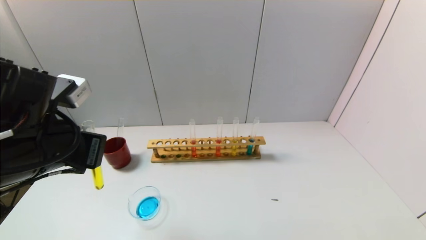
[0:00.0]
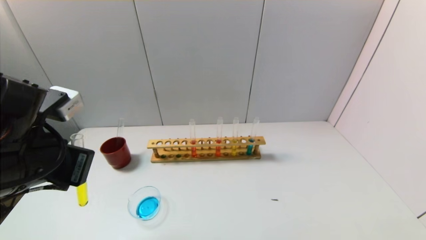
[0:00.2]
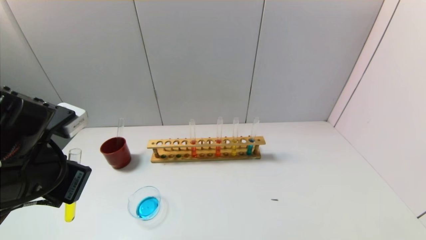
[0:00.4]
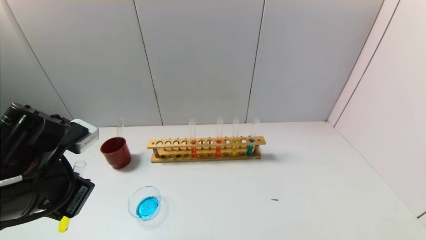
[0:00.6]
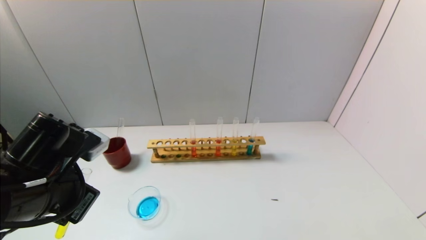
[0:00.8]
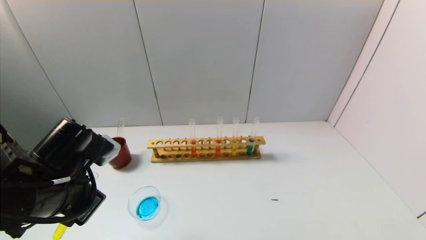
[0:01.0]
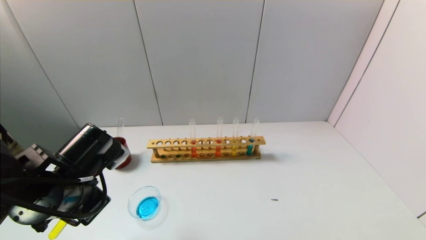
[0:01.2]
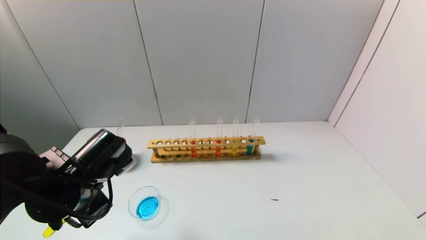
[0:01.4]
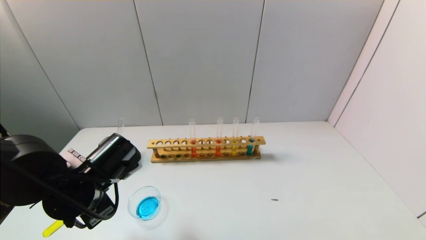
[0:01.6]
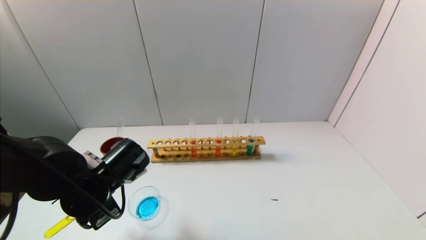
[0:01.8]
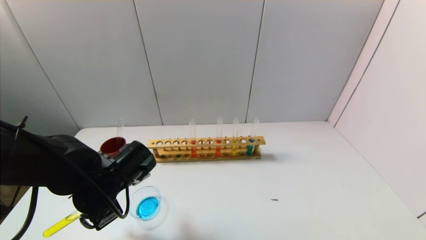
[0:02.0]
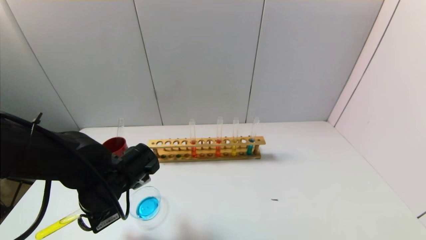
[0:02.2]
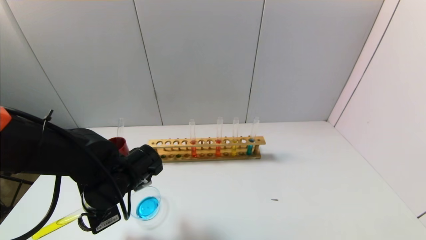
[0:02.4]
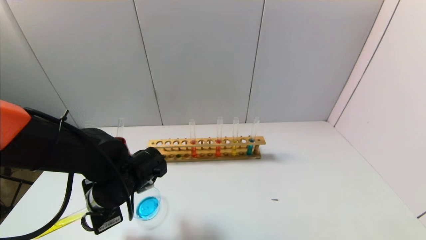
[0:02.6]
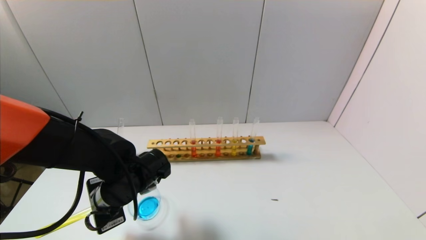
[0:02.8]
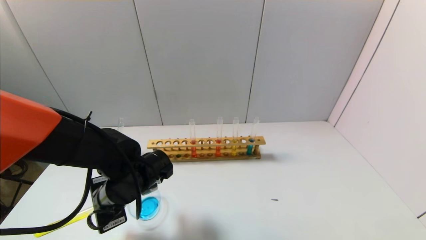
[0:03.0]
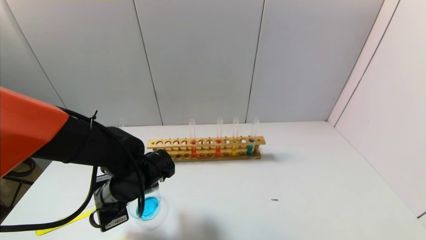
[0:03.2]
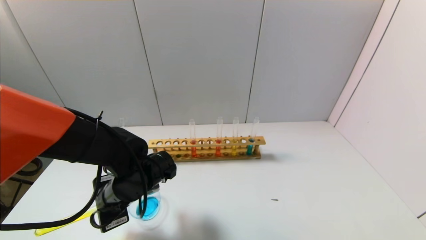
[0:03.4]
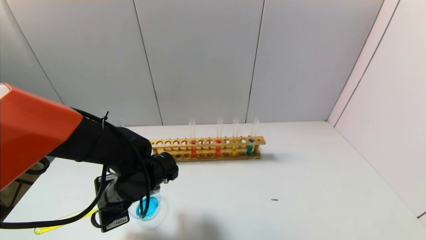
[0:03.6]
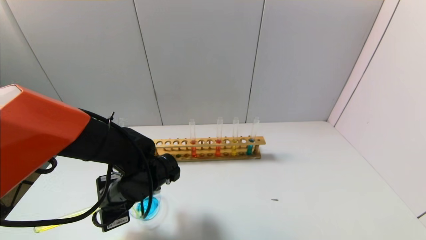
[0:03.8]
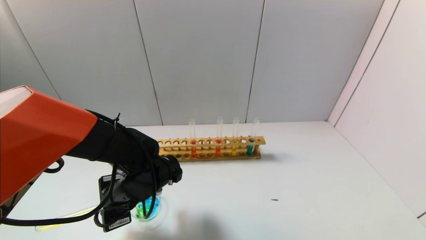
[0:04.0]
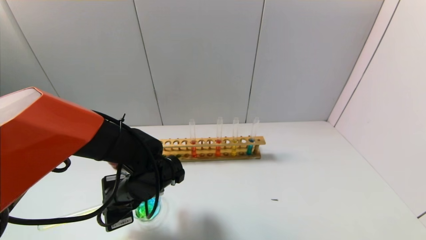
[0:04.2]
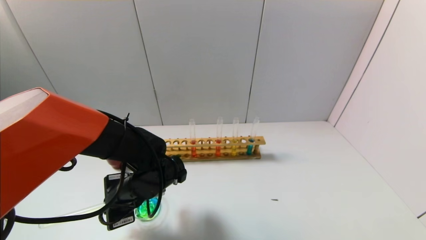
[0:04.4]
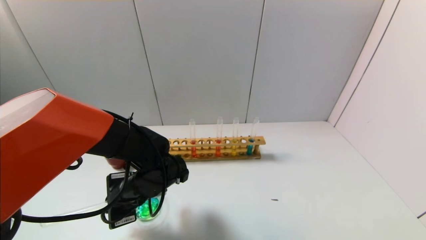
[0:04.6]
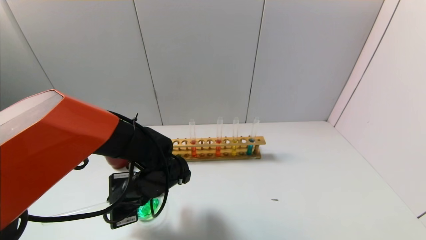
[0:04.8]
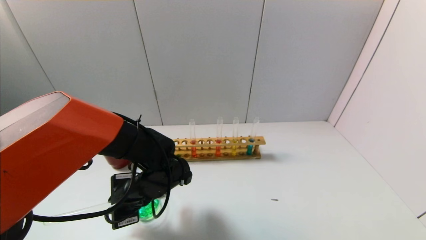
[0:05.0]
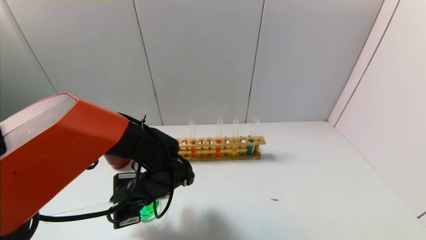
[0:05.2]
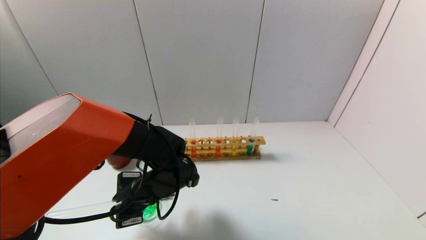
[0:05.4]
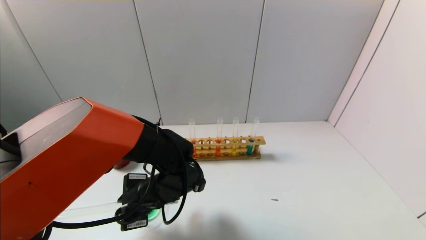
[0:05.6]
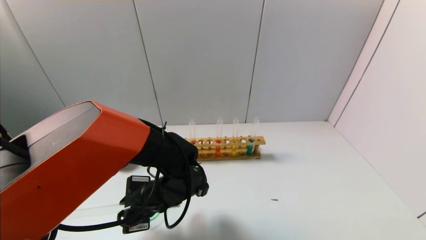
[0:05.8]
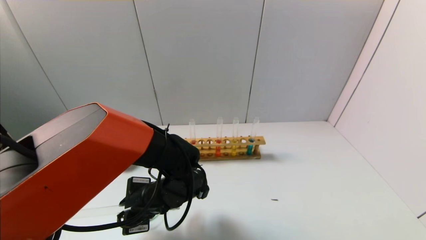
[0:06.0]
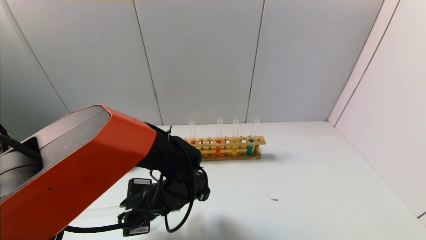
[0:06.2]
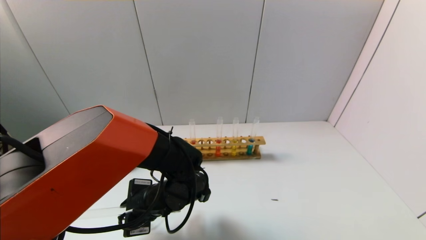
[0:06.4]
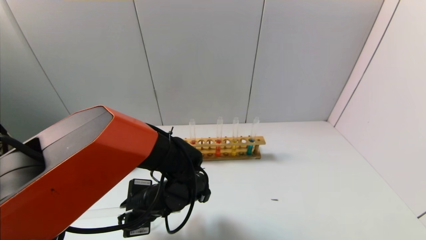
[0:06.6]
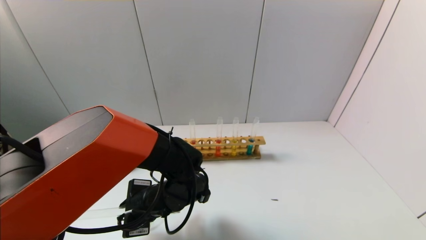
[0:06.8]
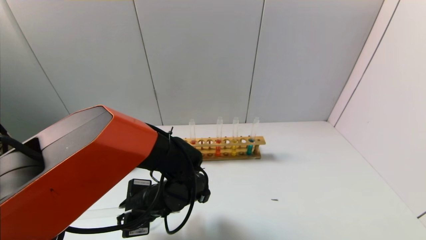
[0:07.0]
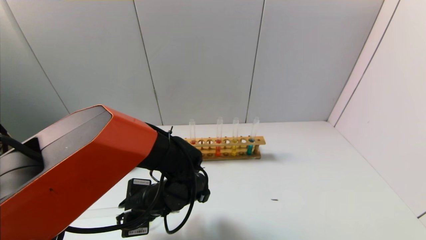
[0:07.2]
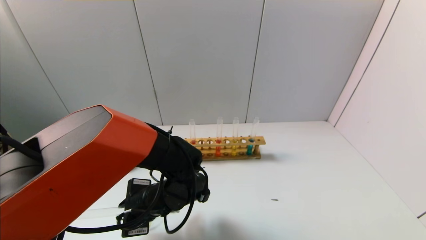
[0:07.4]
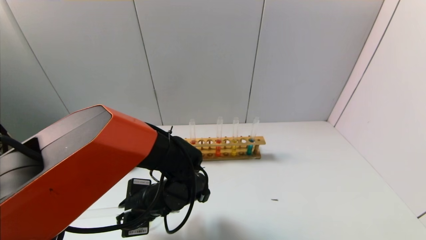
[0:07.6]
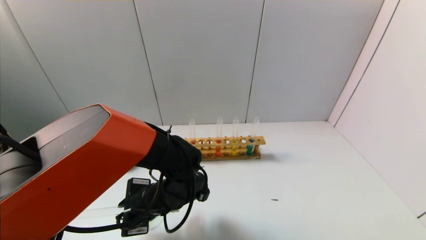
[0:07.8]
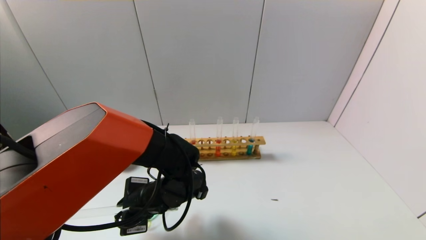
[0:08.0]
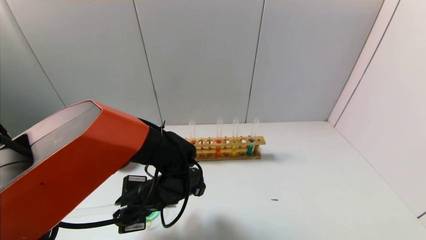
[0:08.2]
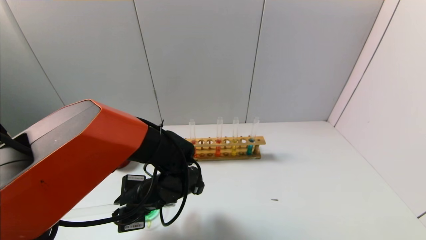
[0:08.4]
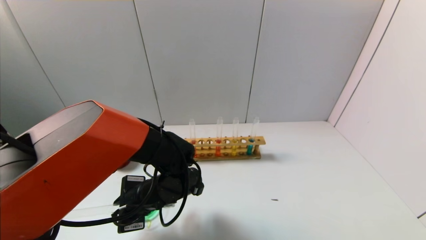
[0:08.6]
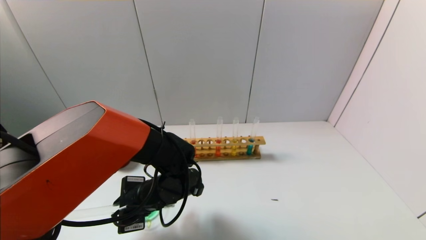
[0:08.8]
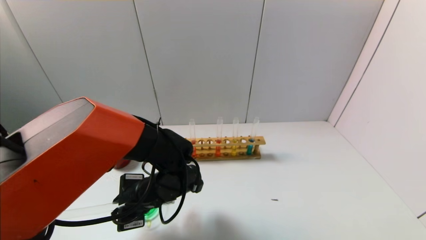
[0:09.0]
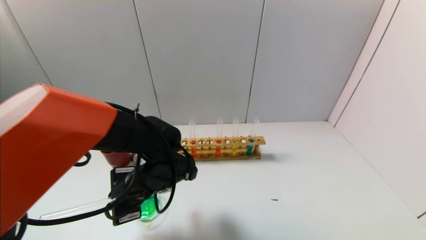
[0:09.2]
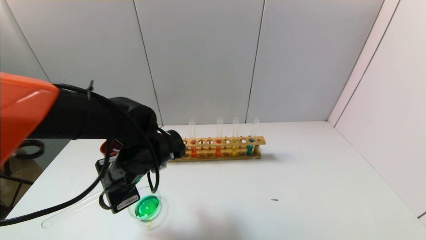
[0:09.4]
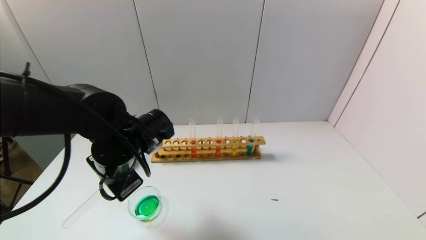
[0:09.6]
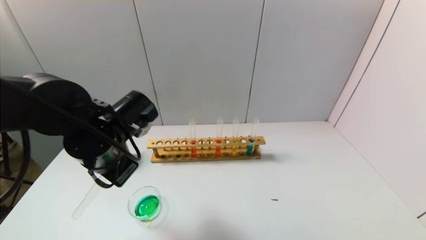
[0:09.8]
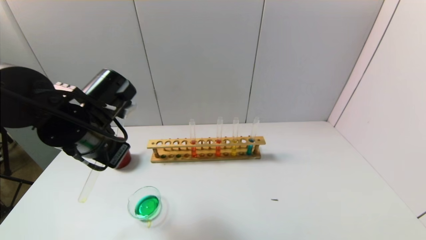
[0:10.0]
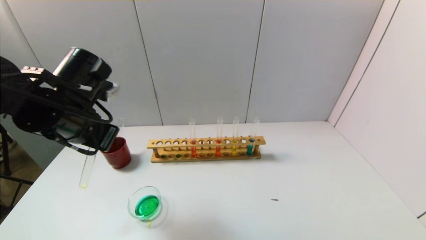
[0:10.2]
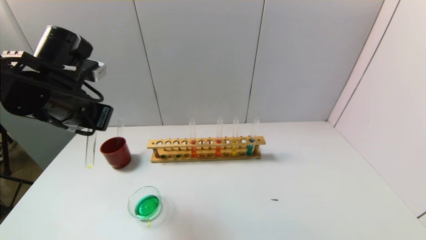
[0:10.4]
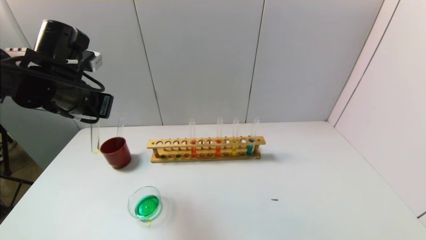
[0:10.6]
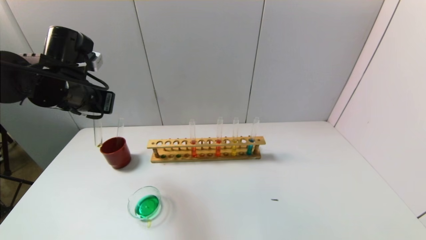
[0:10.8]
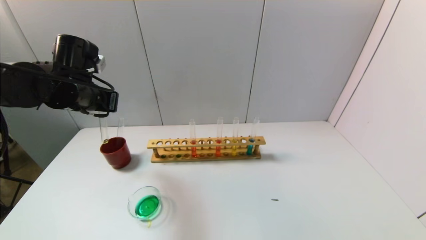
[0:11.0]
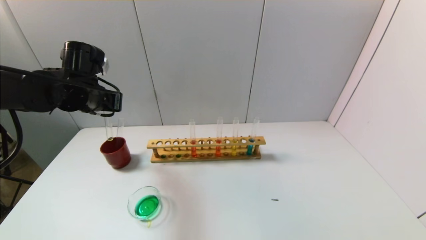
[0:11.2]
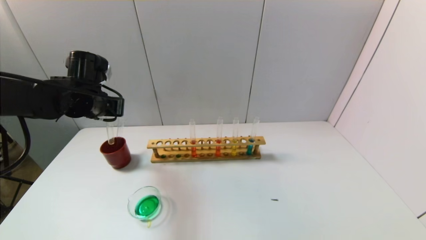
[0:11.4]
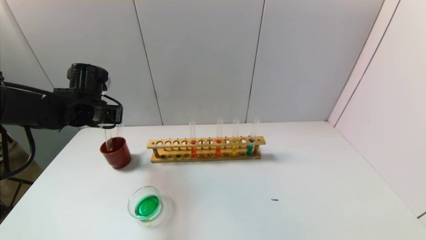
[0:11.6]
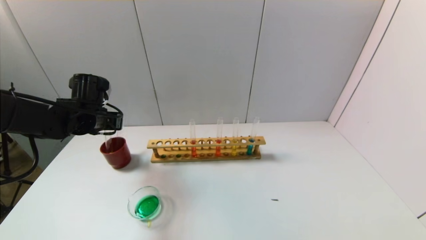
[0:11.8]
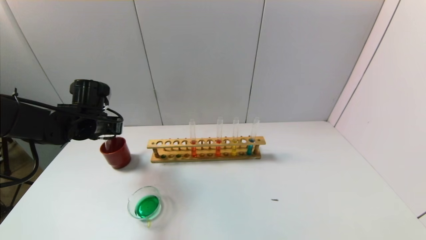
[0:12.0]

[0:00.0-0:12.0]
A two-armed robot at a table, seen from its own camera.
Task of the whole recording: pick up the test tube with yellow pigment and the test tube with blue pigment by grippers and pour them into the beaker.
Step, 0:00.0 to 0:09.2: Pour the yellow reagent into the graduated cylinder with the left gripper.
0:00.0 to 0:01.6: The left gripper travels downward by approximately 10 cm.
0:01.6 to 0:03.0: The left gripper moves about 5 cm.
0:03.0 to 0:04.4: The grippers move only a little.
0:04.4 to 0:06.0: The grippers stay close to where they were, moving slightly.
0:06.0 to 0:07.6: The two grippers keep their place.
0:07.6 to 0:09.0: The grippers make only small movements.
0:09.0 to 0:10.4: The left gripper travels upward and to the left by some 20 cm.
0:10.4 to 0:12.0: The left gripper is displaced downward and forward by roughly 15 cm.

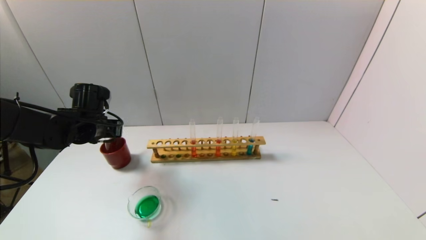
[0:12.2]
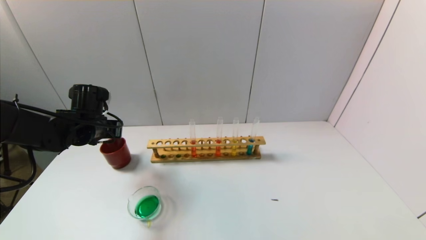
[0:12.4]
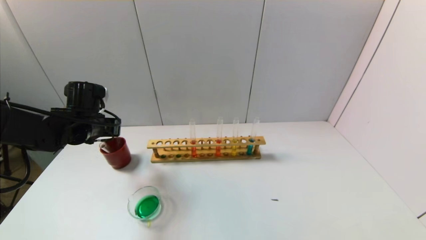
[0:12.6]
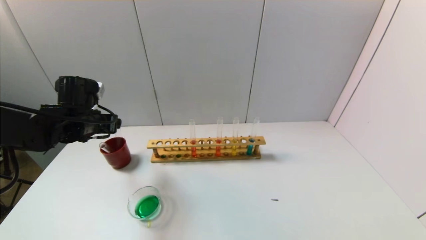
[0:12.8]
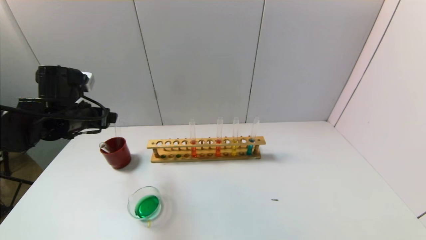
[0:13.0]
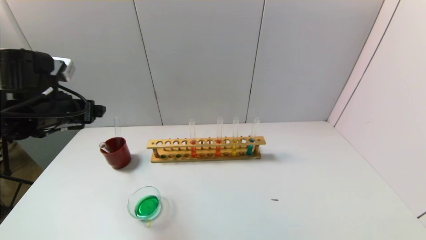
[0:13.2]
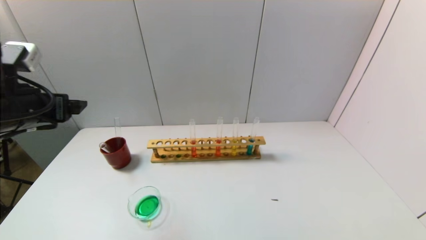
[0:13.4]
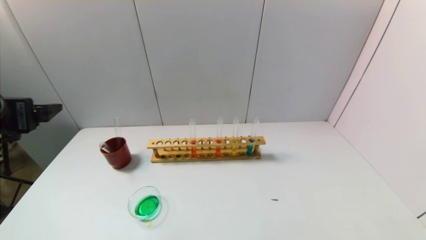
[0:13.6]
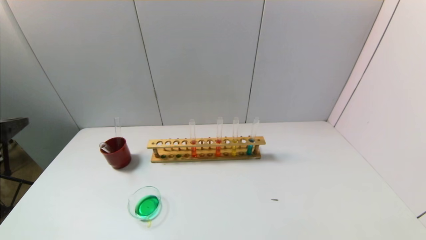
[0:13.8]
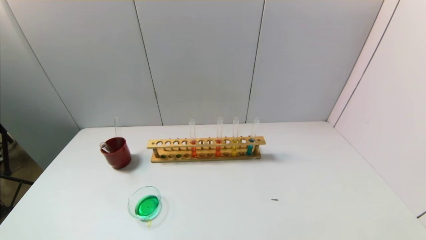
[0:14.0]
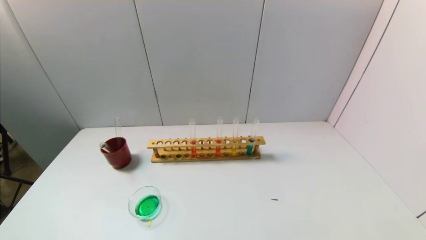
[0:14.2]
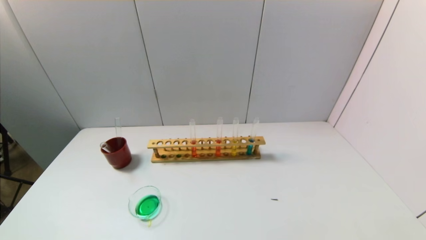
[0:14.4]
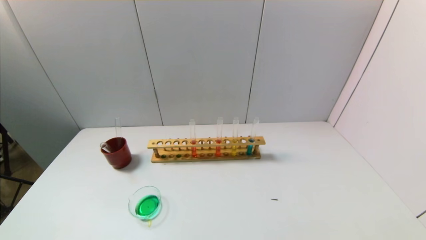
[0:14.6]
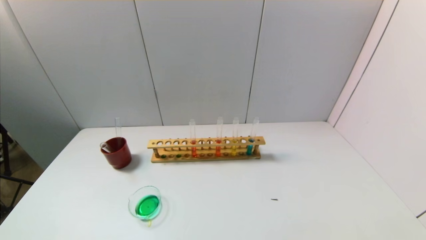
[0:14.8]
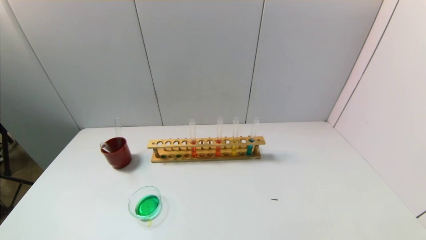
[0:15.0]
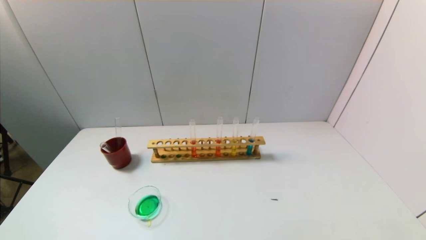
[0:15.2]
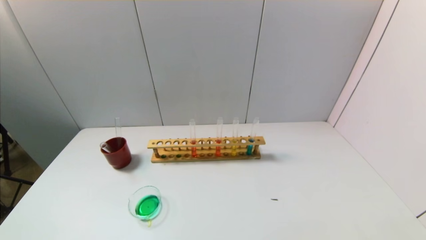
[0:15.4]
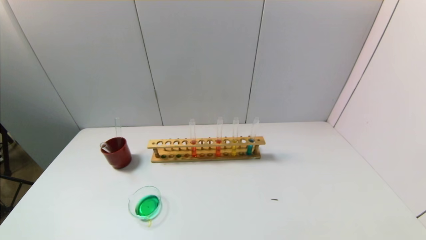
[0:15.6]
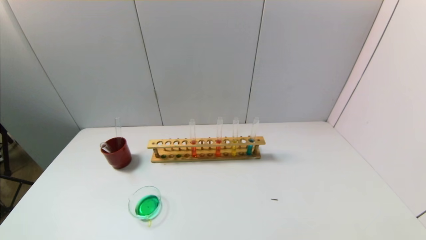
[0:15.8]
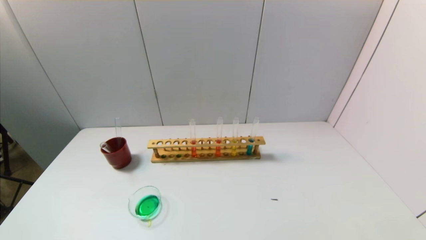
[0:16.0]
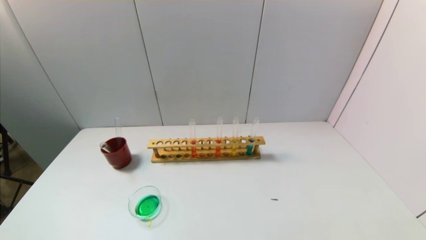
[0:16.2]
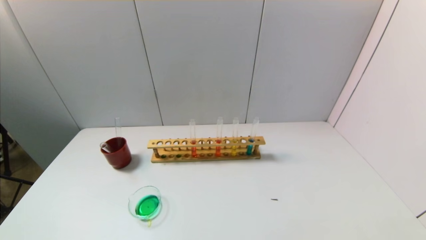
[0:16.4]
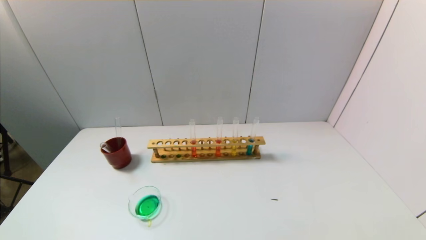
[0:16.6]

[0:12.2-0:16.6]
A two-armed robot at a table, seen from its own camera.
Task of the whole recording: pick up the test tube with yellow pigment and the test tube with blue pigment by grippers and pour them into the beaker.
0:12.2 to 0:13.6: The left gripper is displaced backward and upward by some 25 cm, and opens up.
0:13.6 to 0:15.2: The left gripper shifts about 25 cm downward and backward.
